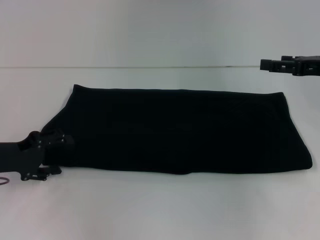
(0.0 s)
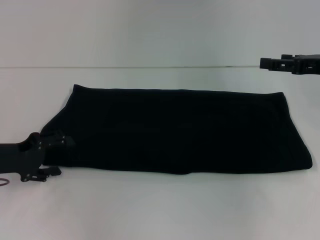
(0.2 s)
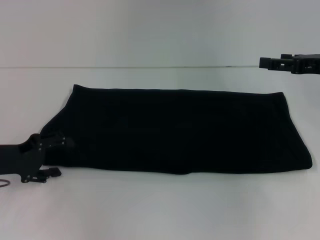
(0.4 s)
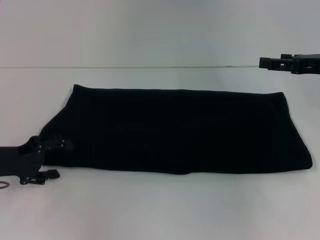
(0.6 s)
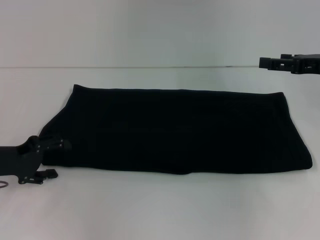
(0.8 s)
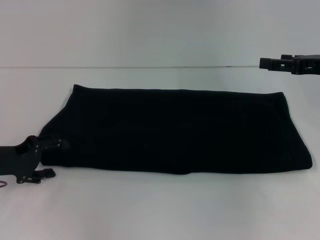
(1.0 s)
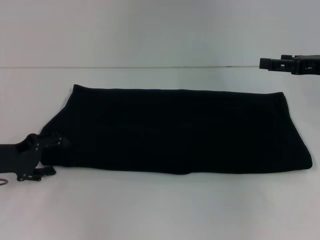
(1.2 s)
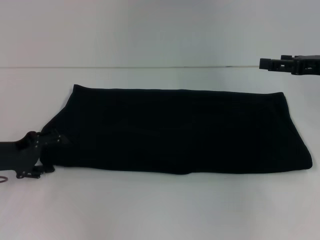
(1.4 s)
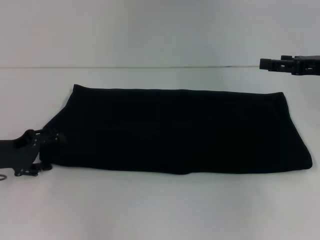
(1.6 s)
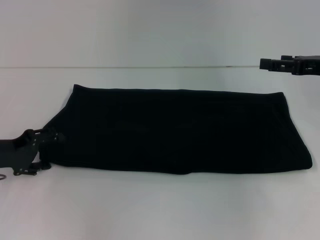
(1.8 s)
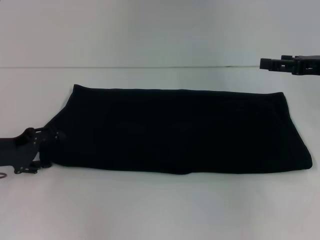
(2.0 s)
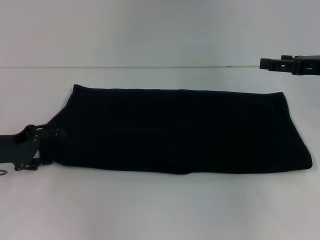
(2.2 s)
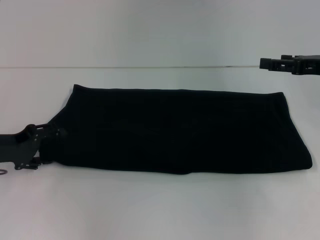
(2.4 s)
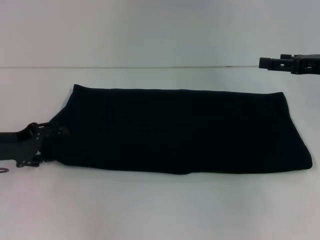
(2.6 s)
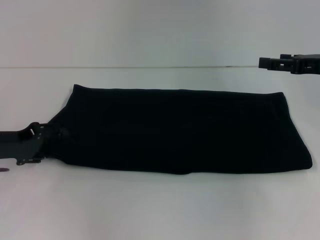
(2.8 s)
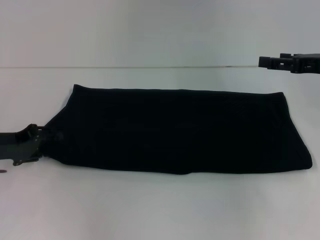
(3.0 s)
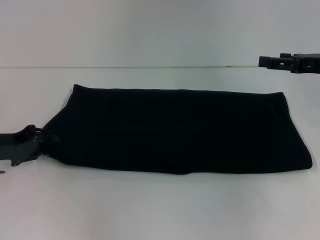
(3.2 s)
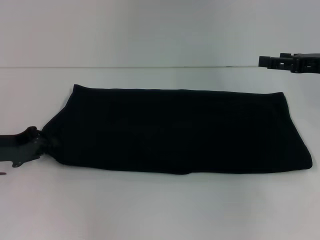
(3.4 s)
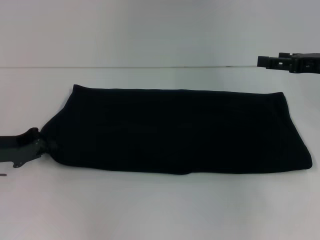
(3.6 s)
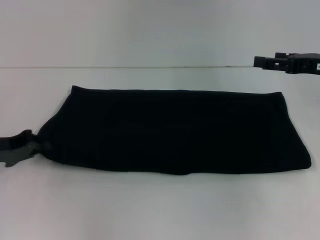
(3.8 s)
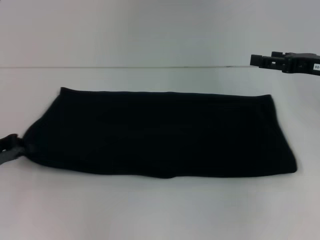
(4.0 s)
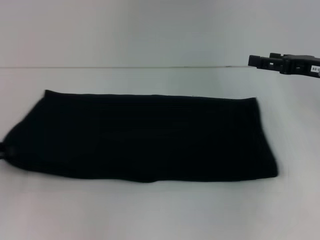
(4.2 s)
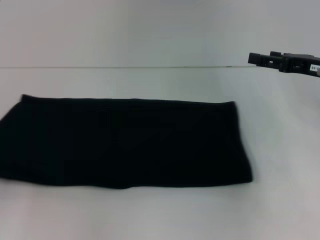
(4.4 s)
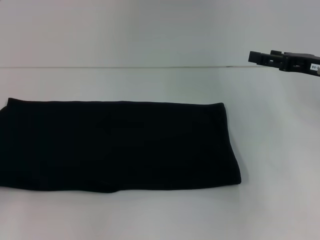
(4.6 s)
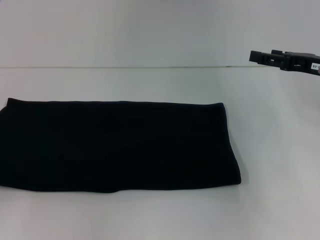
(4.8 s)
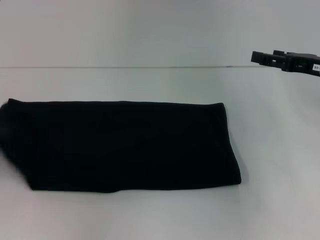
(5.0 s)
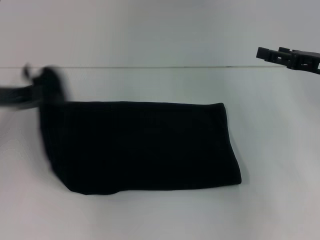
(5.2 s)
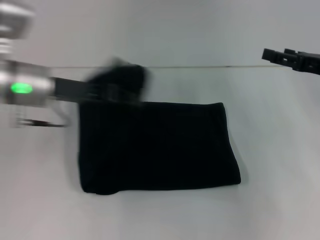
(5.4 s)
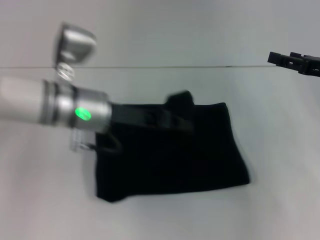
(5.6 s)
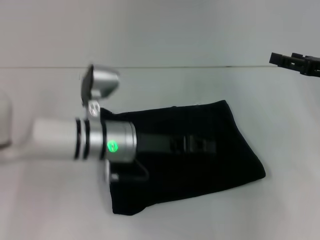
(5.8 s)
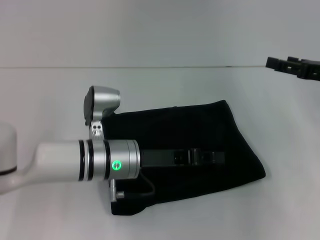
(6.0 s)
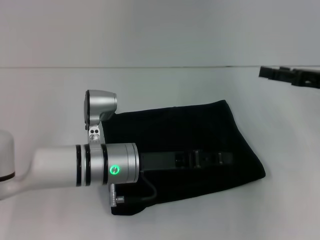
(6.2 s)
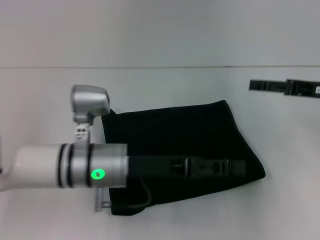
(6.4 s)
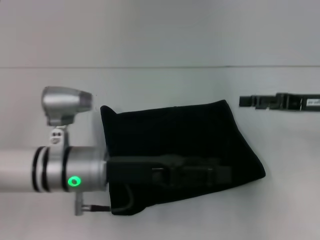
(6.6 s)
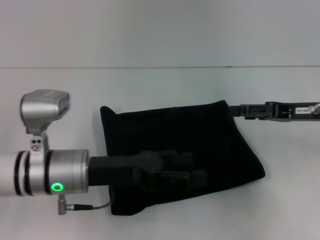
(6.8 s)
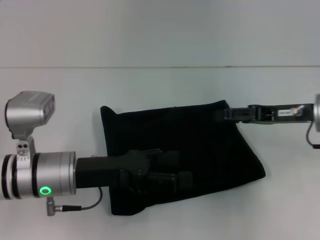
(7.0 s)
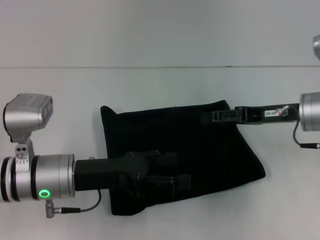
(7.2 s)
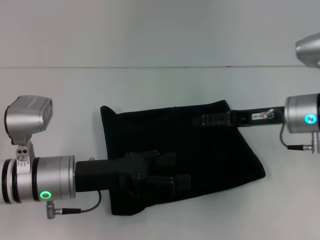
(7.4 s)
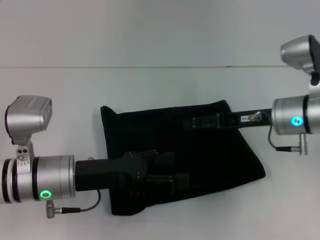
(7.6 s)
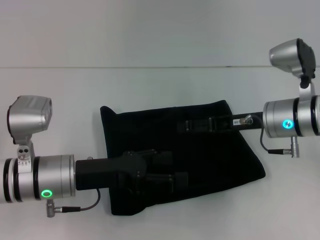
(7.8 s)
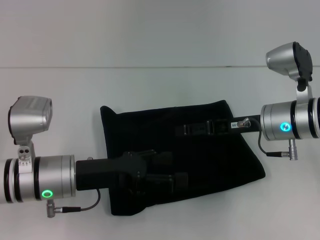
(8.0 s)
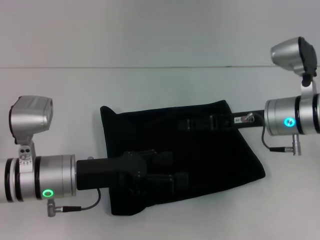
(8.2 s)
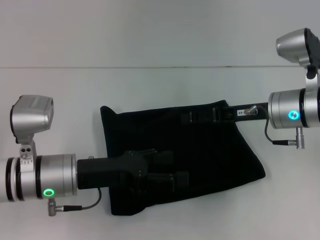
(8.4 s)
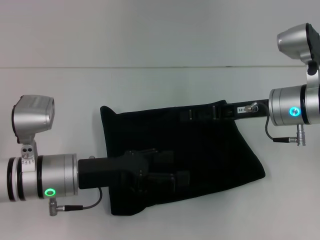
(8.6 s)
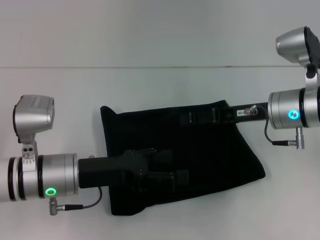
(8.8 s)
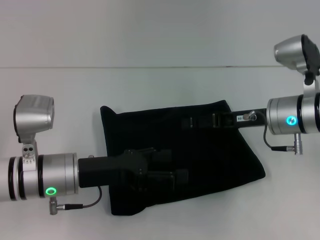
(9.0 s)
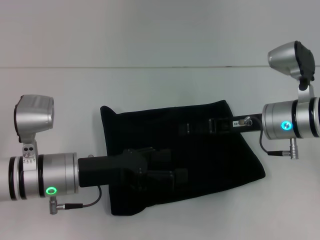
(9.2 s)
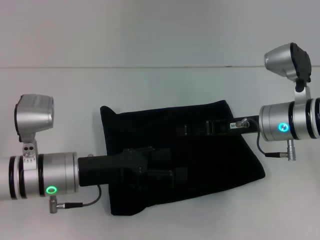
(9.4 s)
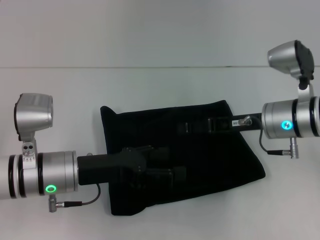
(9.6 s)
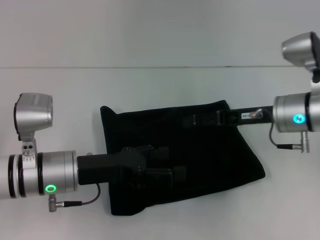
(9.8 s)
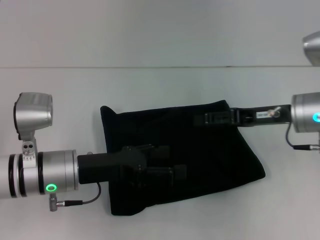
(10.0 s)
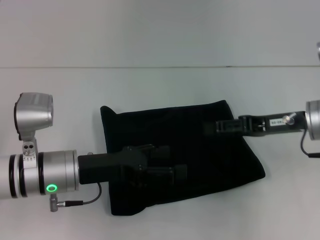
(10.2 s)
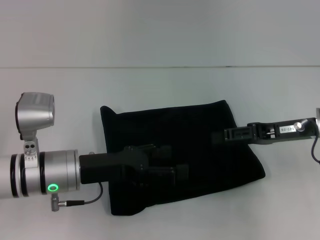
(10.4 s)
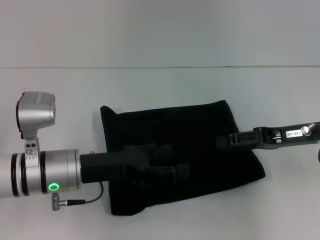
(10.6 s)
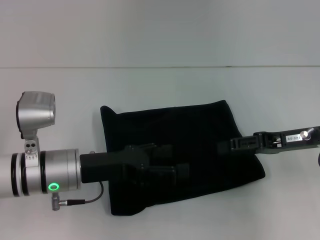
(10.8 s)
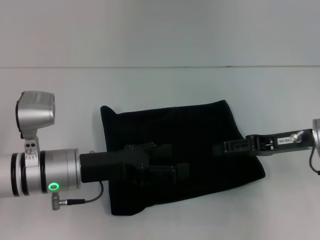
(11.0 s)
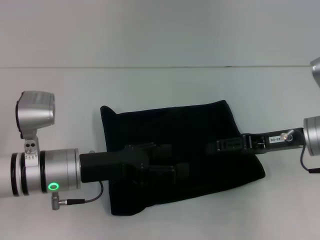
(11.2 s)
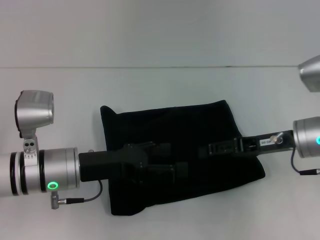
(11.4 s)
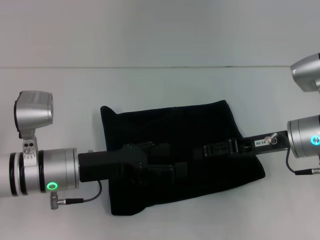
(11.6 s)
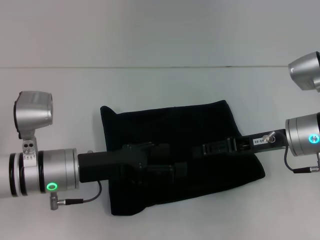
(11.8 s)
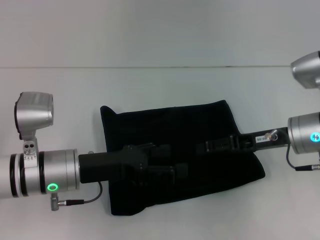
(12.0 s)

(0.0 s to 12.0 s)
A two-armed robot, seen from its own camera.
Step, 0.0 s - 5.8 s: Fold the clothes with your left hand.
0.0 s - 3.0 s: The grippers move only a little.
3.0 s - 4.4 s: The left gripper heads to the left and backward, covering approximately 10 cm, and closes.
4.4 s - 6.0 s: The left gripper shifts roughly 30 cm to the right.
6.0 s - 7.6 s: The two grippers go roughly 10 cm to the left. The left gripper opens its fingers.
7.6 s - 9.0 s: There are only small adjustments of the grippers.
9.0 s - 10.4 s: The right gripper moves to the right, some 5 cm.
10.4 s - 12.0 s: The grippers move only a little.

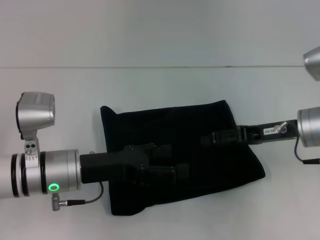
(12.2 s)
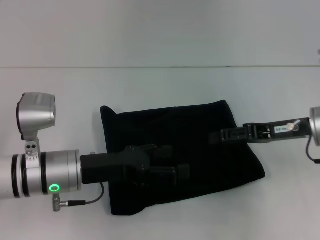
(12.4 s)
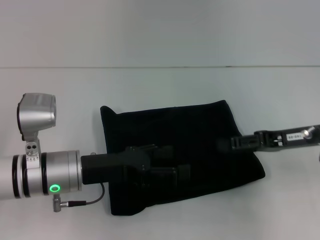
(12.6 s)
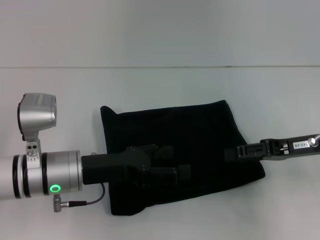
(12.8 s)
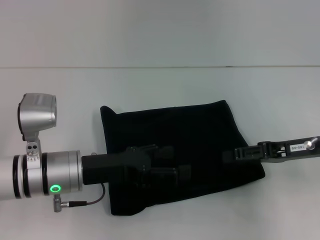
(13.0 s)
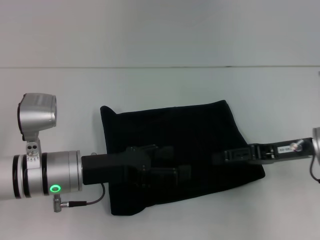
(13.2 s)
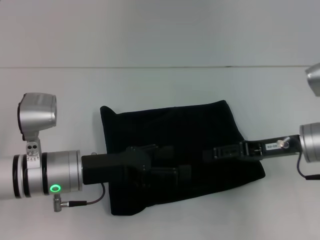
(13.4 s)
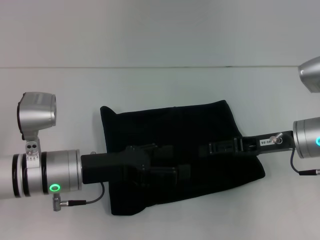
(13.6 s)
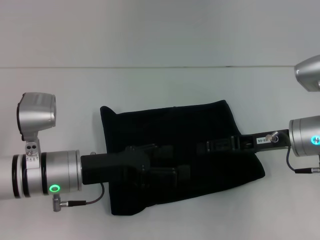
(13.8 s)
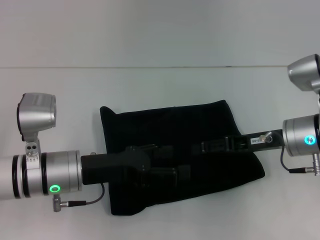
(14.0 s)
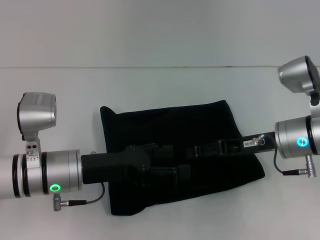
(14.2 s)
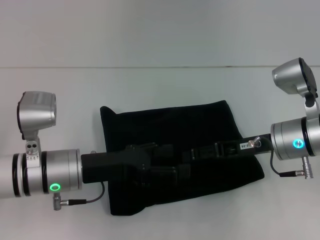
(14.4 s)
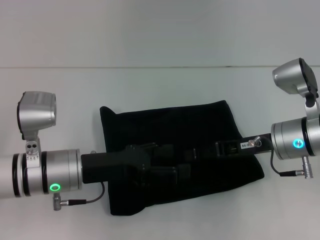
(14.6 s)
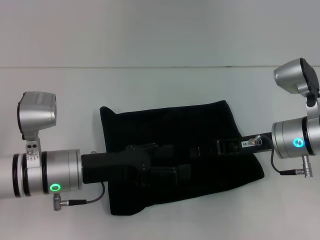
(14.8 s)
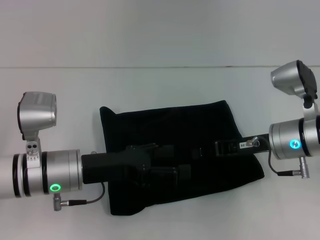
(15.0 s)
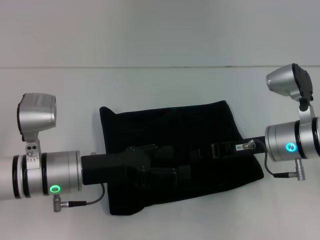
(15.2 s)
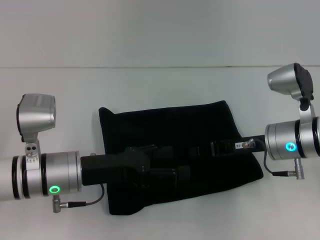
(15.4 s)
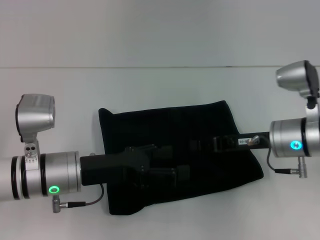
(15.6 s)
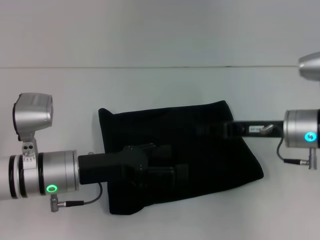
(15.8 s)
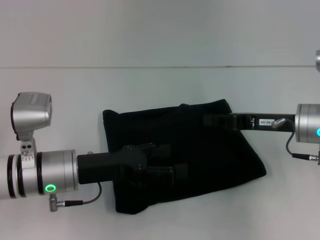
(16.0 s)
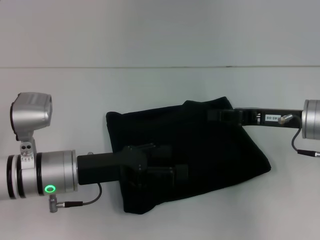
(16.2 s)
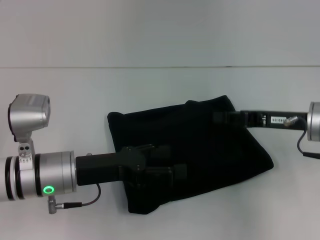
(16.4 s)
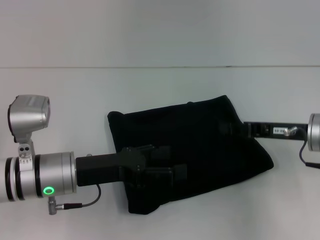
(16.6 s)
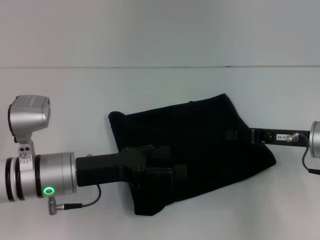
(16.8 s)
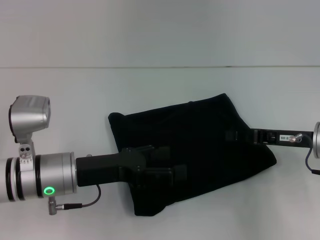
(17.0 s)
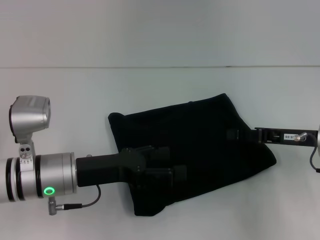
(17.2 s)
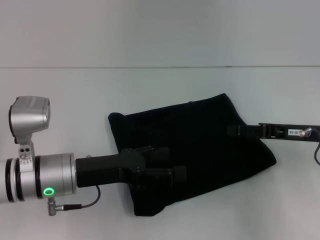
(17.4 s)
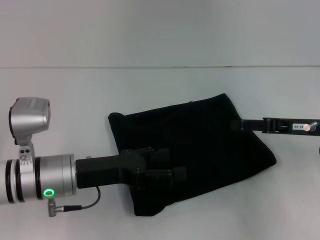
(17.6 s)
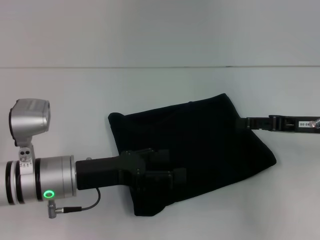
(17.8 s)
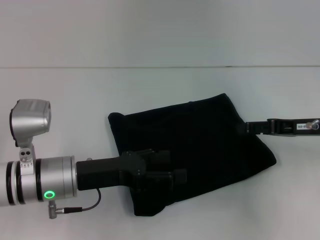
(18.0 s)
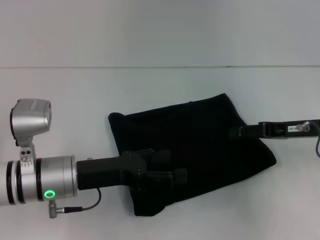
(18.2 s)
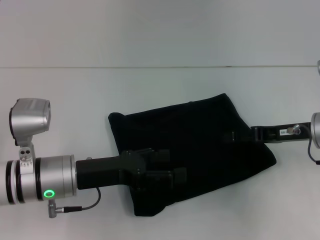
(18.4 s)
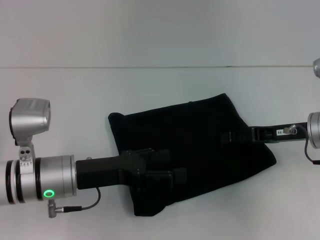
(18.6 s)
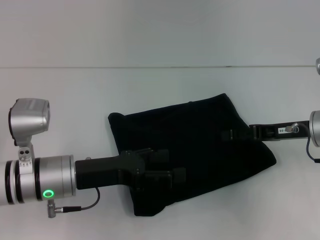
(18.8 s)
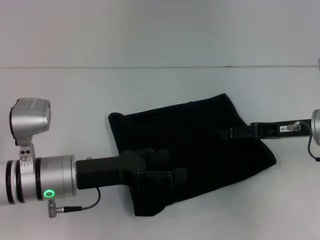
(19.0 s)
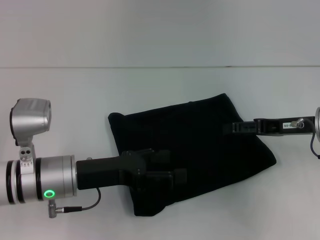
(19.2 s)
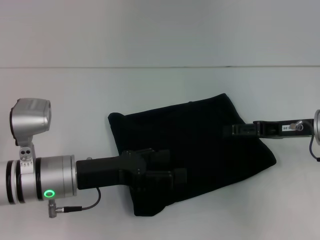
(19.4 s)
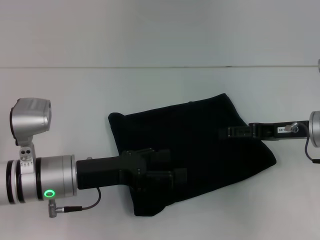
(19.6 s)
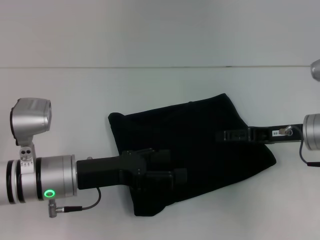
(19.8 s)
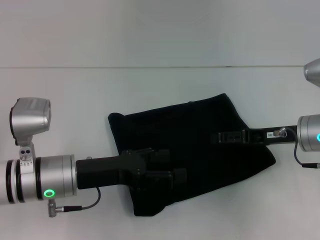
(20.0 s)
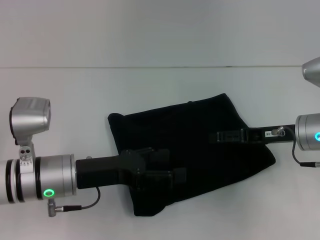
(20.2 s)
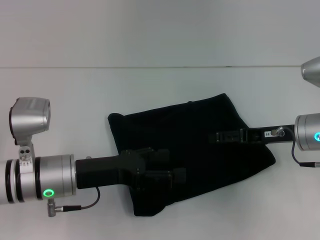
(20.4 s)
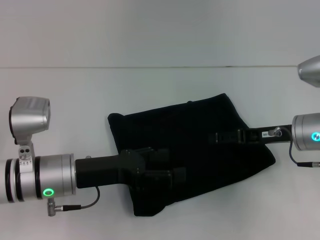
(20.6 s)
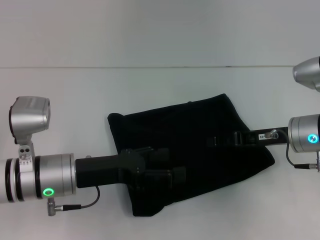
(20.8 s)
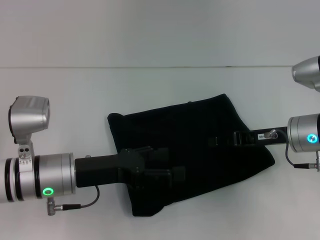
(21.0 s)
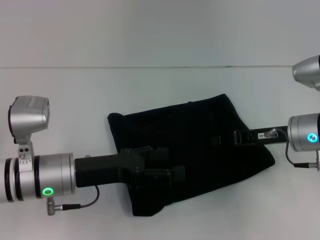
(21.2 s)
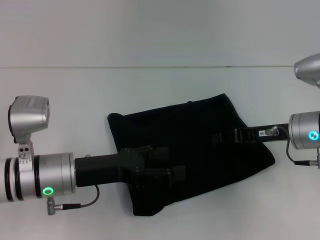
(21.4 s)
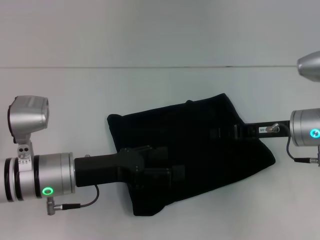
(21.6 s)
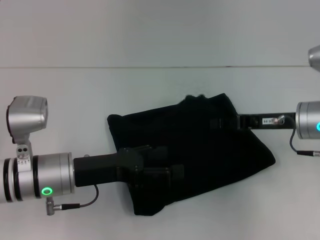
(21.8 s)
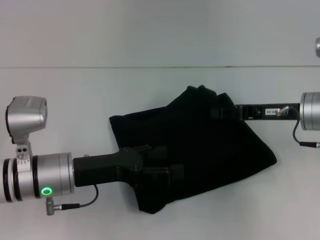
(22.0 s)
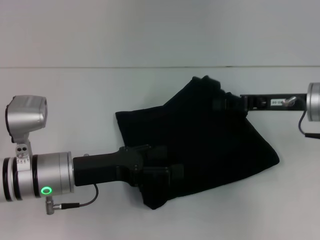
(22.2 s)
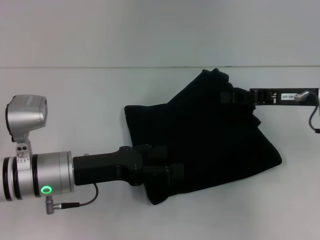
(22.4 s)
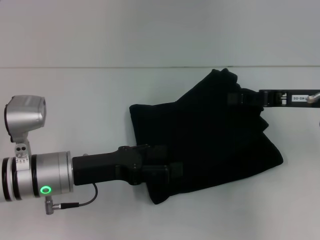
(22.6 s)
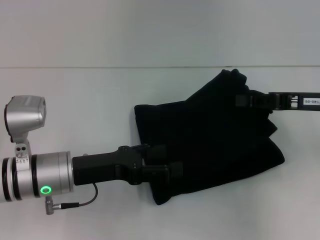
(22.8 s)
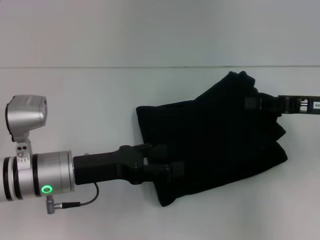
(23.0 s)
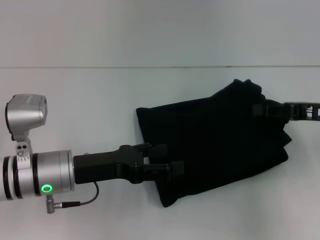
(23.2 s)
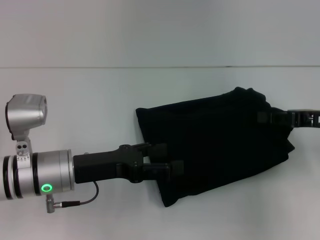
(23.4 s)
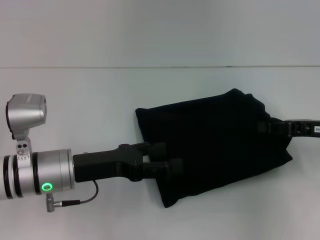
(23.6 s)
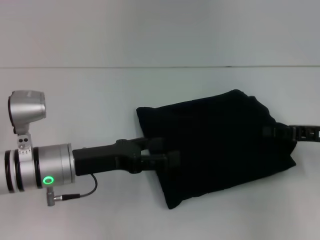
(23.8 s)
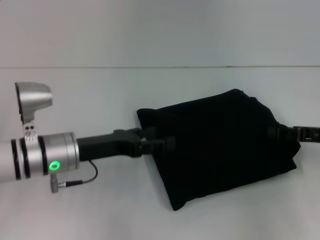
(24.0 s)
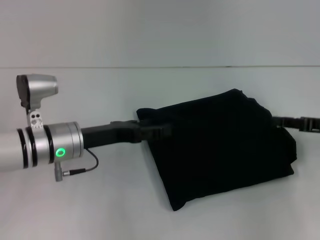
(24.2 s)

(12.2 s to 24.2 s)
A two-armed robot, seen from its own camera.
12.2 s - 13.8 s: There are only small adjustments of the grippers.
13.8 s - 15.2 s: The right gripper closes.
15.2 s - 16.6 s: The right gripper moves to the right, about 5 cm.
16.6 s - 18.2 s: The right gripper opens its fingers.
18.2 s - 19.8 s: The grippers make only small movements.
19.8 s - 21.2 s: The right gripper closes its fingers.
21.2 s - 22.6 s: The right gripper shifts some 5 cm upward.
22.6 s - 24.2 s: The right gripper travels to the right and downward by some 10 cm.
